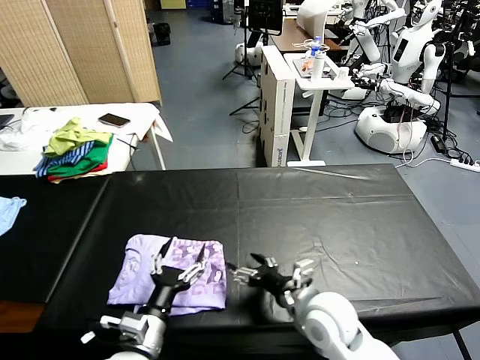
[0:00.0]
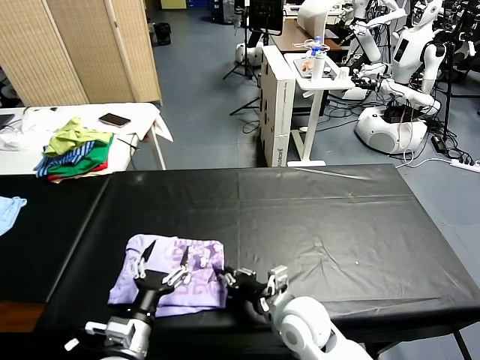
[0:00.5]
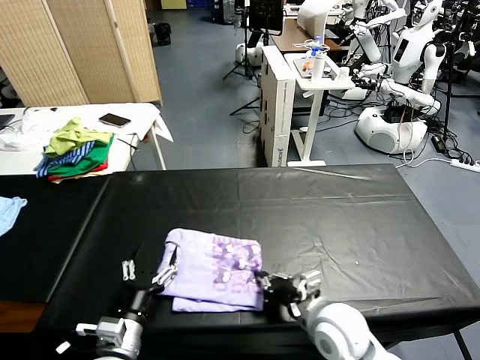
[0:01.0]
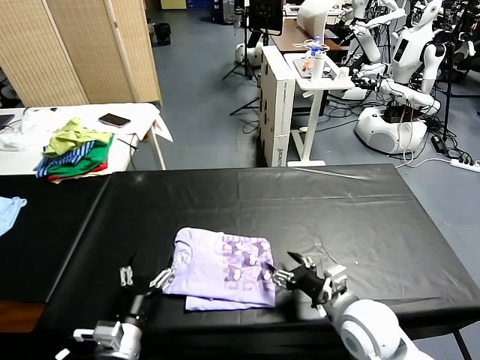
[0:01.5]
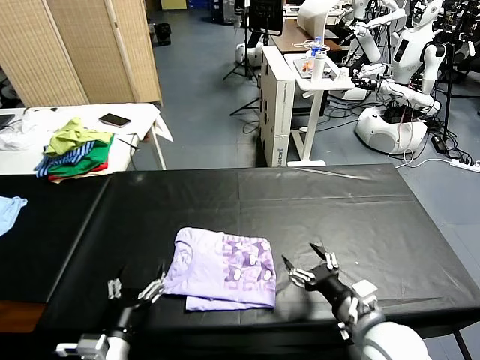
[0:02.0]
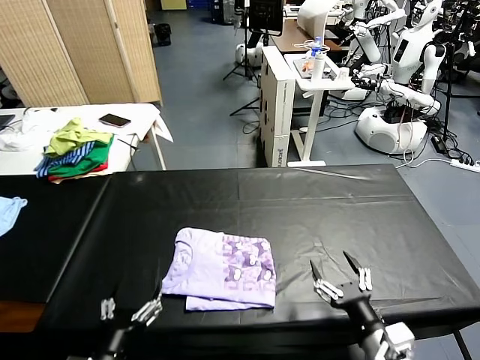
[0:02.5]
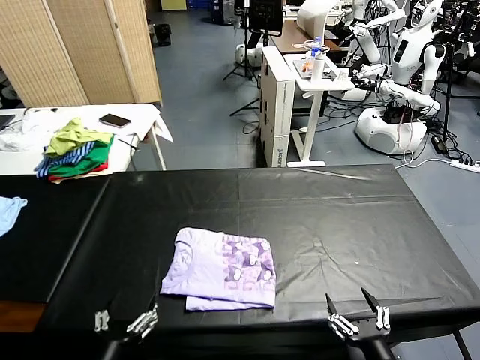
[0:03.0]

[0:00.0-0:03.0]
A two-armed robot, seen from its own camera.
Task of the whole recording: fold and organize the clothes.
Step, 0:00.5 to 0:01.5: Drag the clothes to the center of the table.
0:00.0 to 0:01.5: The right gripper moves to the right, approximately 5 cm, and closes, then opens again.
0:01.5 to 0:03.0: The left gripper is displaced backward by roughly 10 cm; the right gripper travels backward by roughly 15 cm.

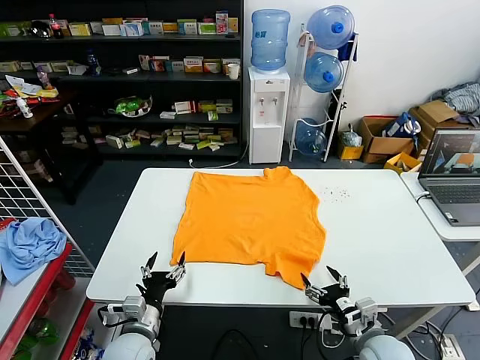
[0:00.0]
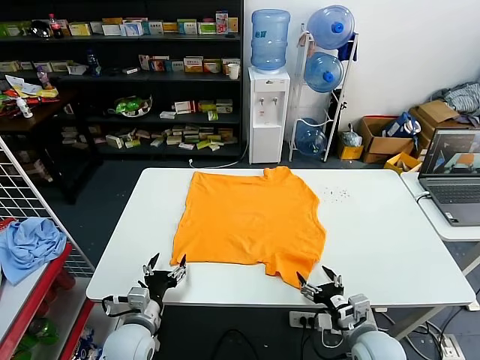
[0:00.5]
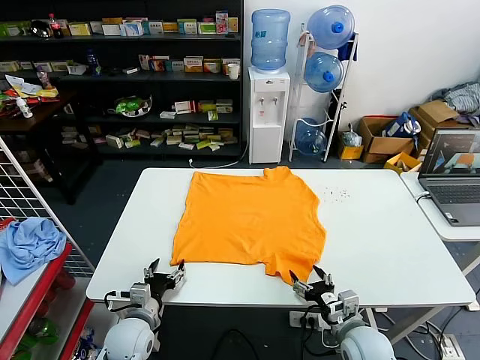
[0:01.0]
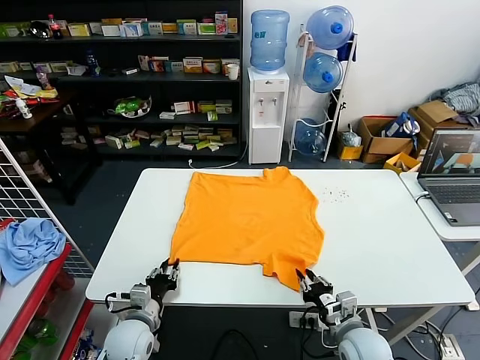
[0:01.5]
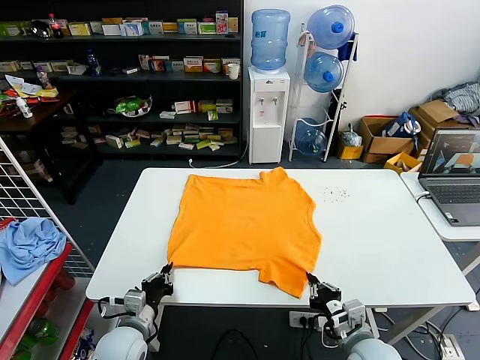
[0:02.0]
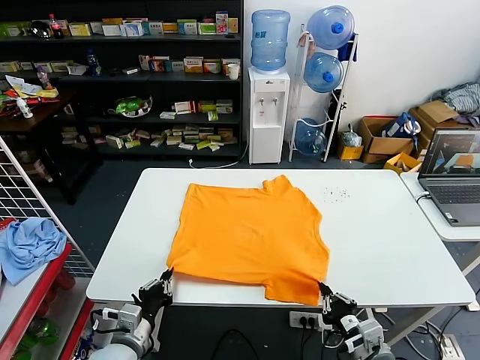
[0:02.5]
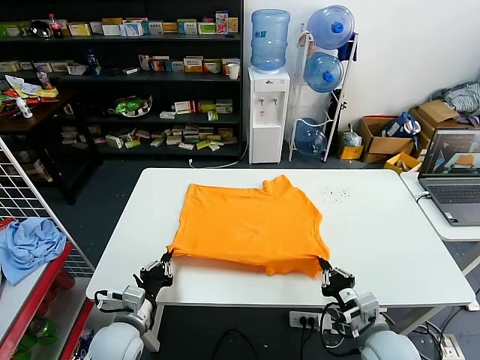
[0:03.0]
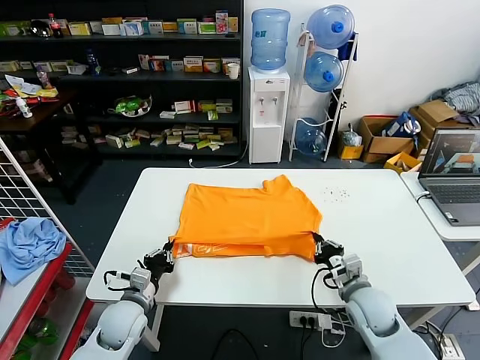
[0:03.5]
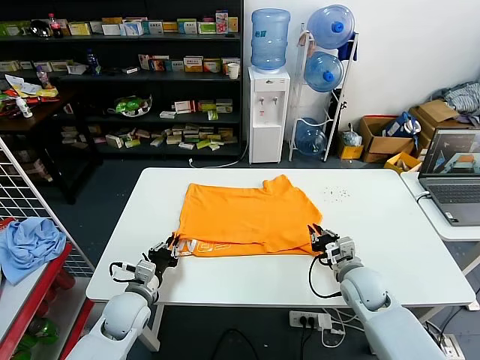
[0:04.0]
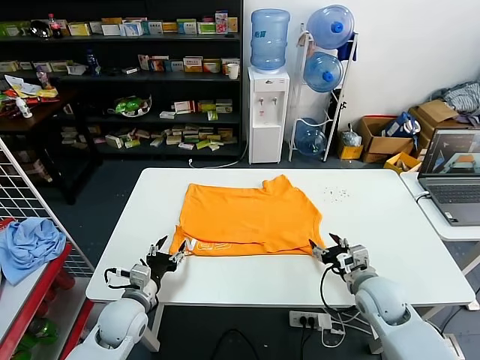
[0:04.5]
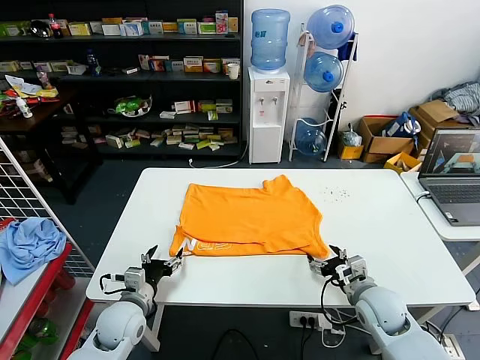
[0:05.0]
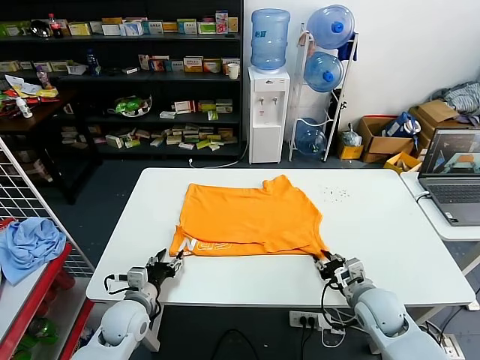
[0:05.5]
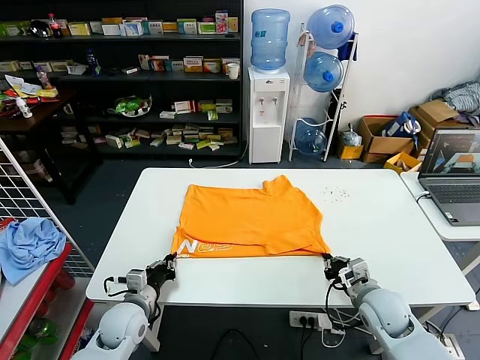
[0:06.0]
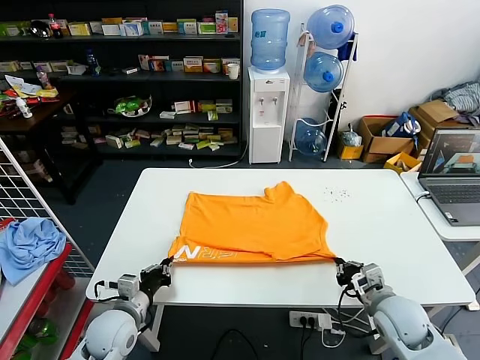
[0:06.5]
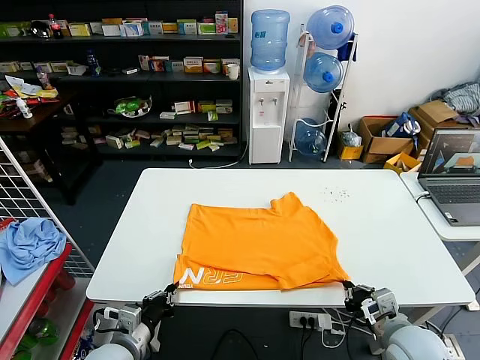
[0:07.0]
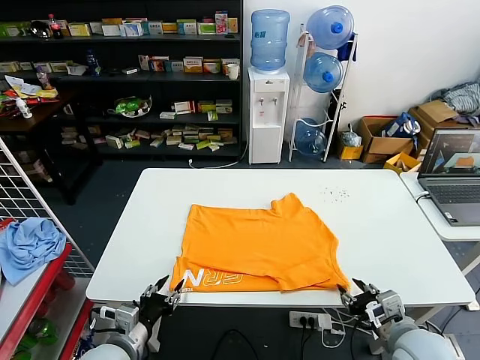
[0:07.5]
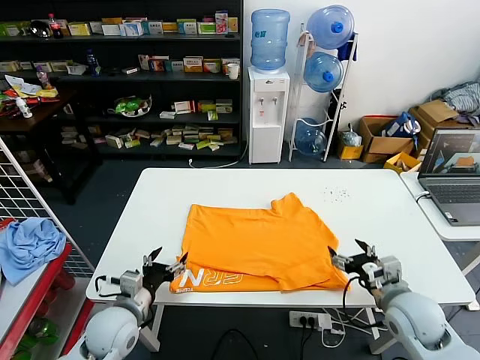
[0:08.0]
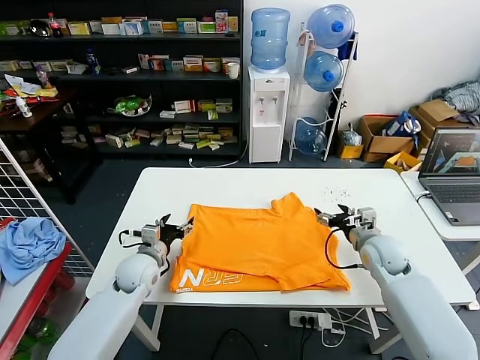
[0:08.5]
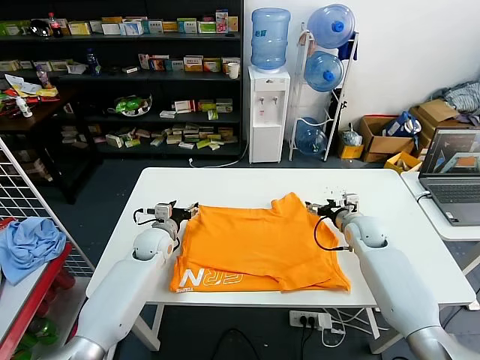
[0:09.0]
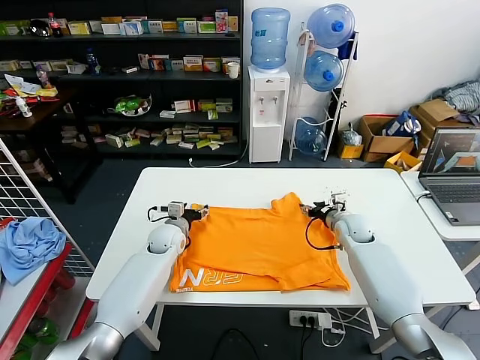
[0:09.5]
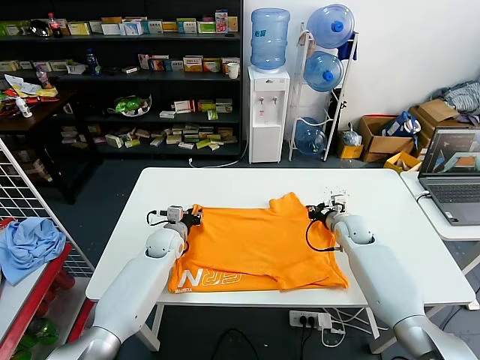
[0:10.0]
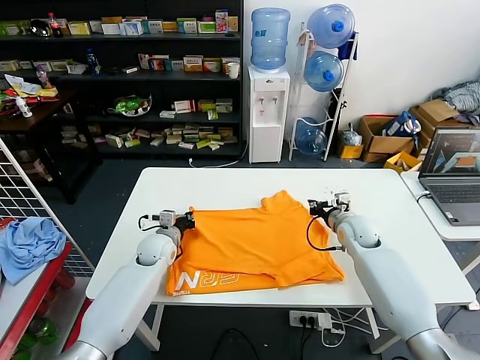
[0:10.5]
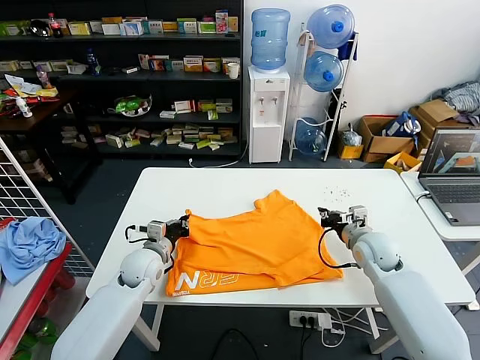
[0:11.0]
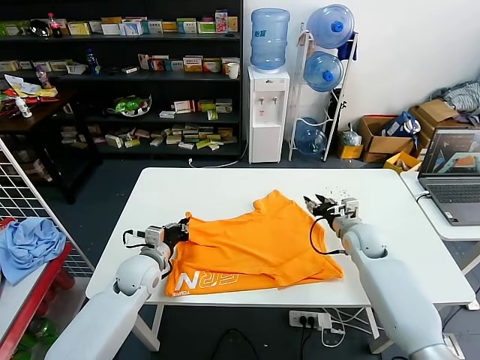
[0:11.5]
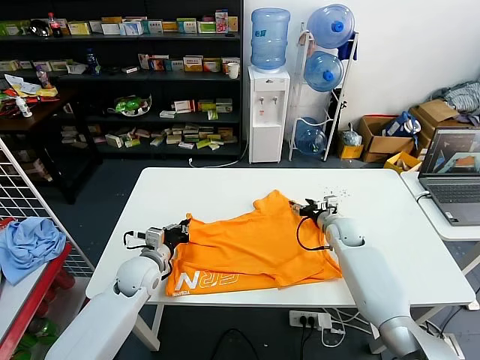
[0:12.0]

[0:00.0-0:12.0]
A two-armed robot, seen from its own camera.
Task of the whole recording: fold and organize the clothes.
Step, 0:00.0 to 0:01.5: use both grippers simultaneously to clamp the lower edge of the clothing fabric.
Step, 0:02.0 to 0:04.0: use both grippers to drag the lower edge of the fabric forward and fold it over the upper edge.
Step, 0:04.5 to 0:07.0: Drag the clothes downward with both gripper.
Step, 0:07.5 to 0:10.0: use both grippers simultaneously to clamp the upper edge of the clothing fabric.
0:02.0 to 0:04.0: The right gripper moves forward, roughly 15 cm, while the left gripper shifts about 5 cm forward.
0:04.0 to 0:06.0: The left gripper opens, then closes once more. The right gripper is displaced backward by about 5 cm, and opens, then closes again.
0:06.0 to 0:08.0: Both grippers move upward, some 5 cm. The left gripper opens up, while the right gripper travels backward and back again, roughly 10 cm each way, and opens its fingers.
0:08.0 to 0:10.0: Both grippers travel together forward, approximately 25 cm. The right gripper closes up, while the left gripper closes.
0:10.0 to 0:12.0: The right gripper goes backward and returns, approximately 10 cm each way, and opens. Meanwhile the left gripper goes about 10 cm backward, and closes its fingers.

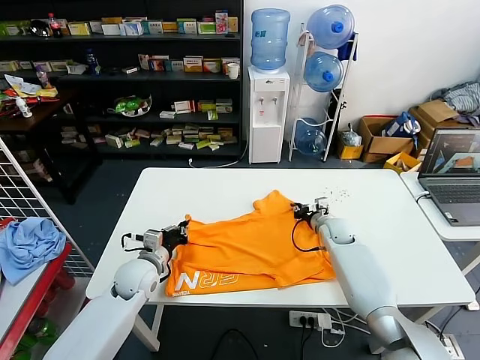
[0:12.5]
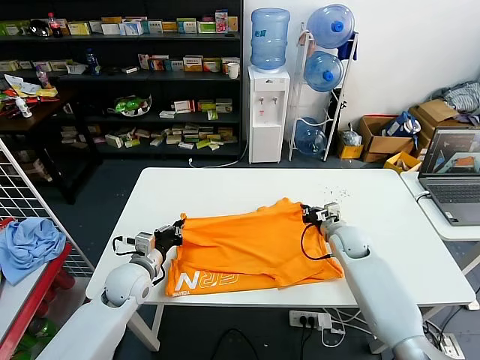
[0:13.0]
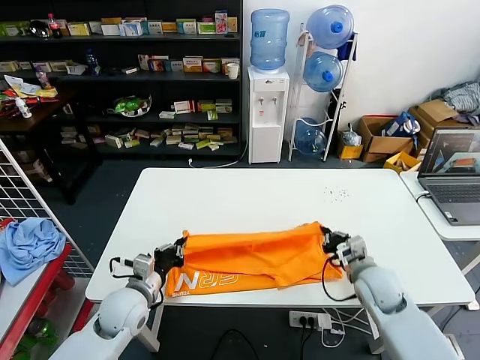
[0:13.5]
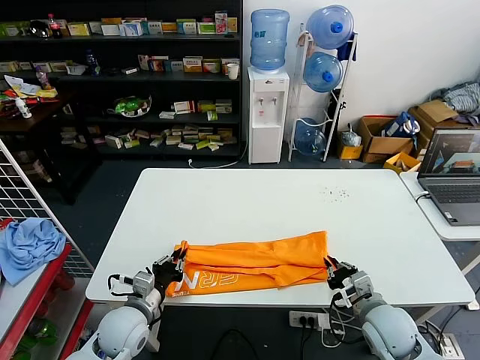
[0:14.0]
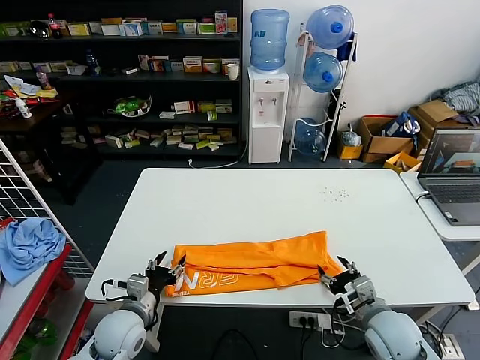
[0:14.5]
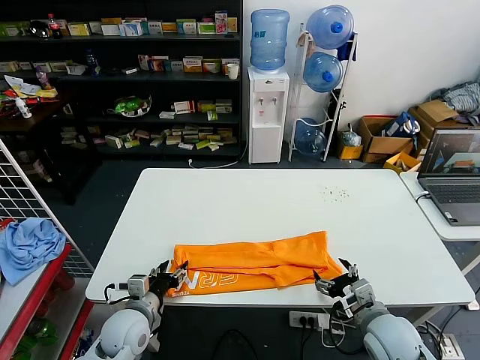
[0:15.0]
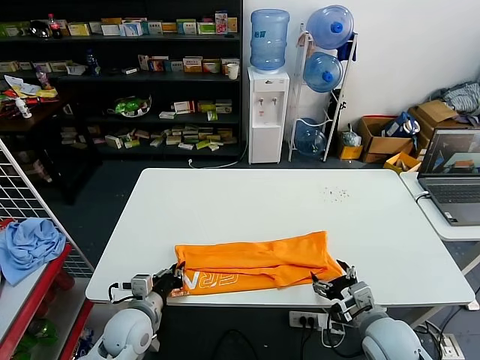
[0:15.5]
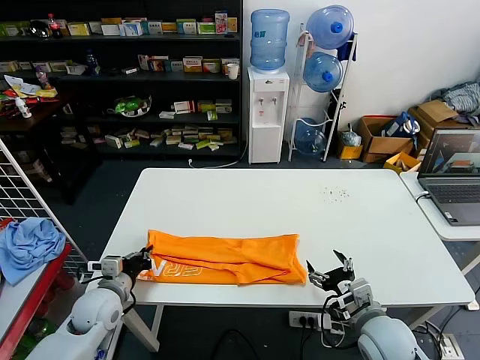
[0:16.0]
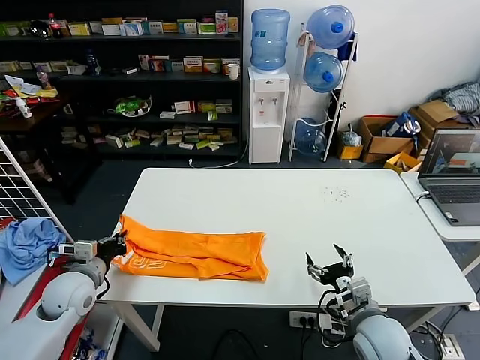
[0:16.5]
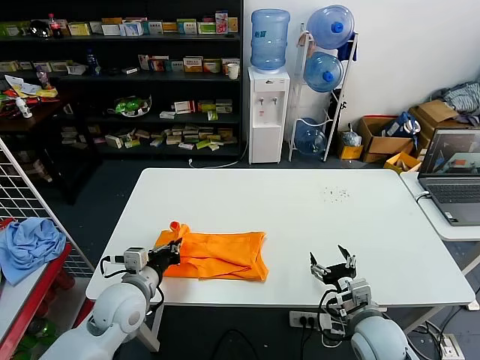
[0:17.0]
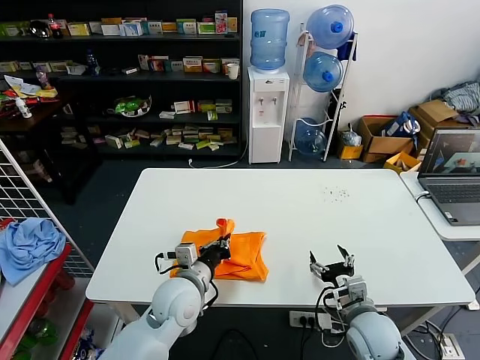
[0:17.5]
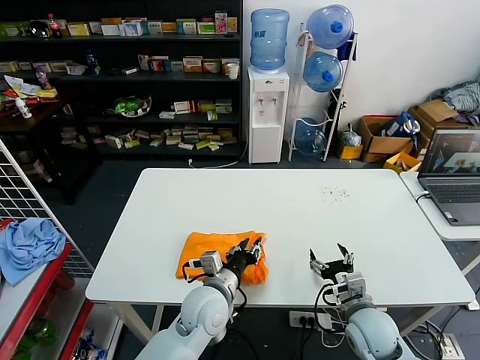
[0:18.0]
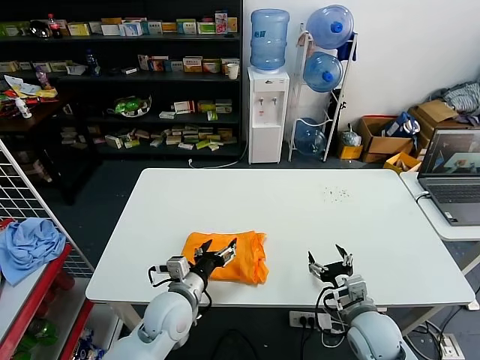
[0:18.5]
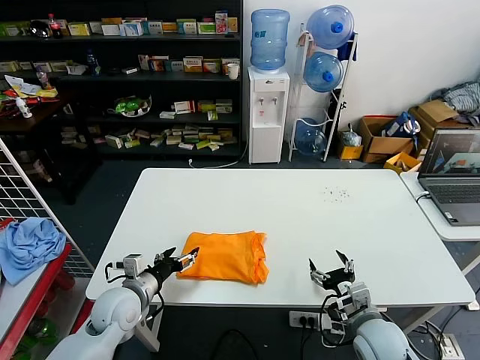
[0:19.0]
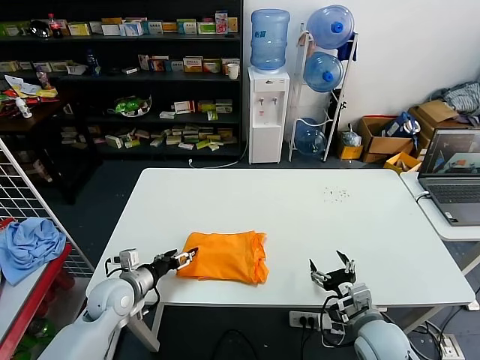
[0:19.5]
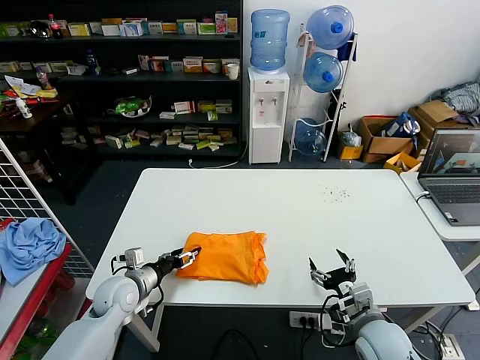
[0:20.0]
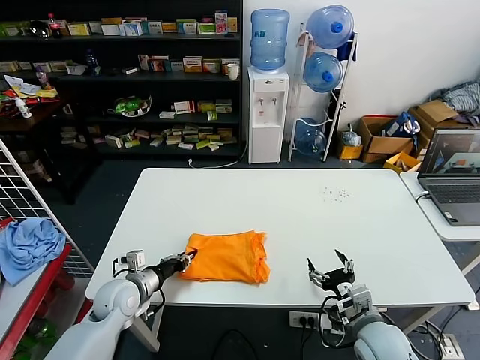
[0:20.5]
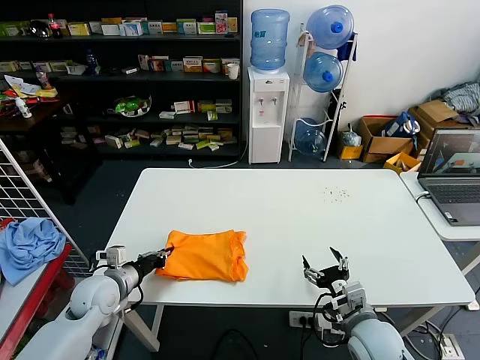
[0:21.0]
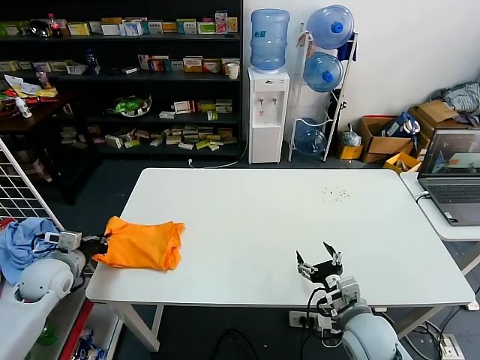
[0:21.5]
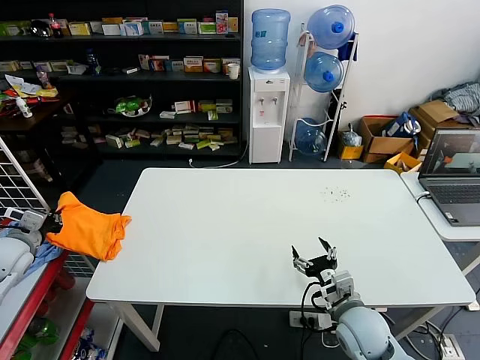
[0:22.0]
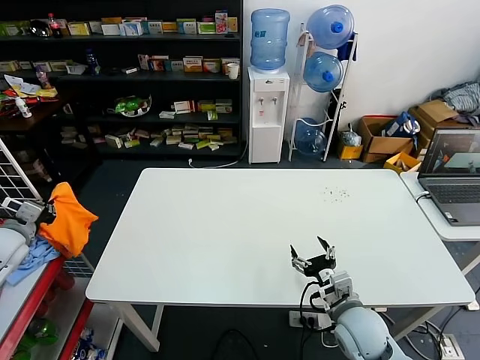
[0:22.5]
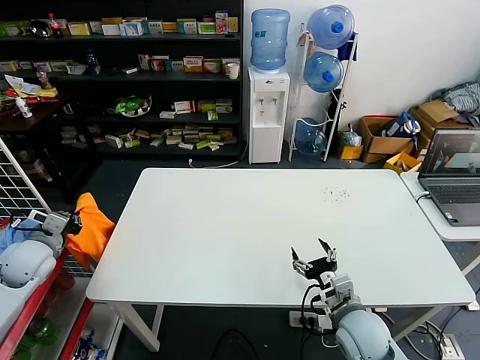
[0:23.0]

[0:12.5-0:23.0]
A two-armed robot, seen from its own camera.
Task of the whole recording: fold and organize the clothes.
Step, 0:14.5 to 0:15.5: use the left gripper to clamp the left edge of the fabric.
Step, 0:16.0 to 0:18.0: use the left gripper to drag the left edge of the fabric to the left and folds it over the right edge.
0:12.5 to 0:14.5: The right gripper goes approximately 25 cm backward, and opens up. The left gripper moves backward, about 10 cm, and opens.
0:14.5 to 0:16.5: The left gripper is displaced to the left, upward and forward by approximately 15 cm, and closes its fingers.
0:16.5 to 0:19.0: The left gripper travels to the right by some 10 cm, and opens.
0:19.0 to 0:21.0: The left gripper travels to the left by some 5 cm, and closes.
0:21.0 to 0:23.0: The left gripper travels to the left and upward by approximately 20 cm.
